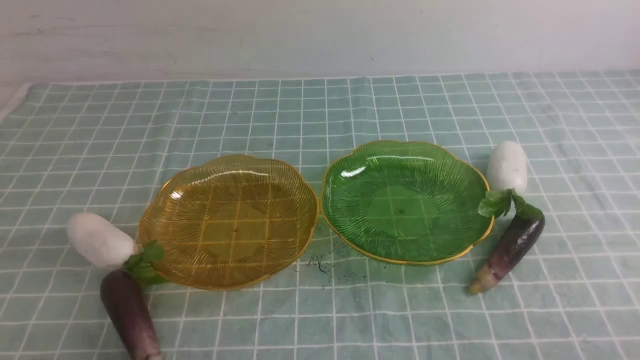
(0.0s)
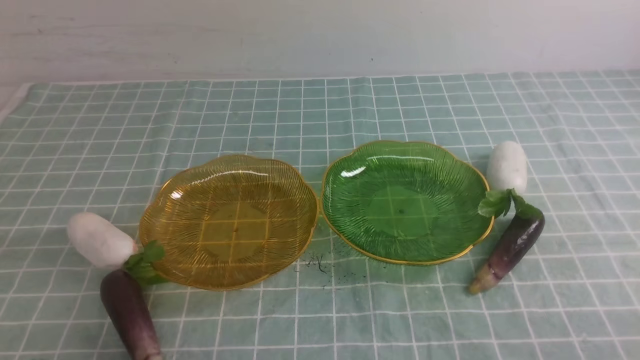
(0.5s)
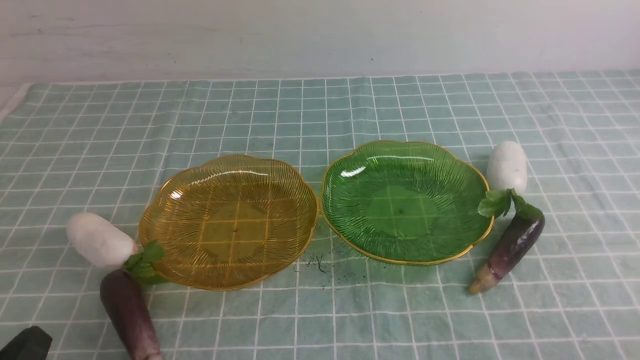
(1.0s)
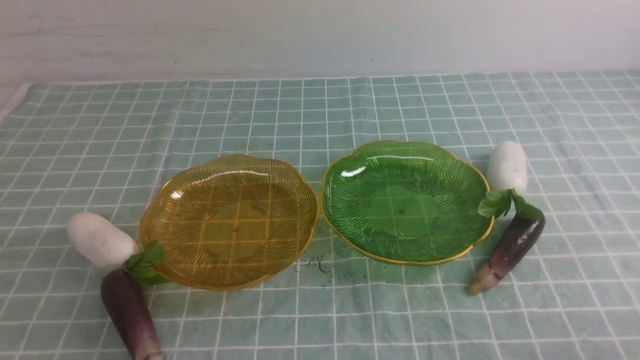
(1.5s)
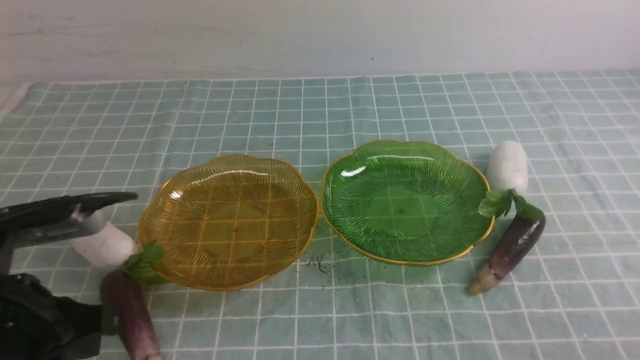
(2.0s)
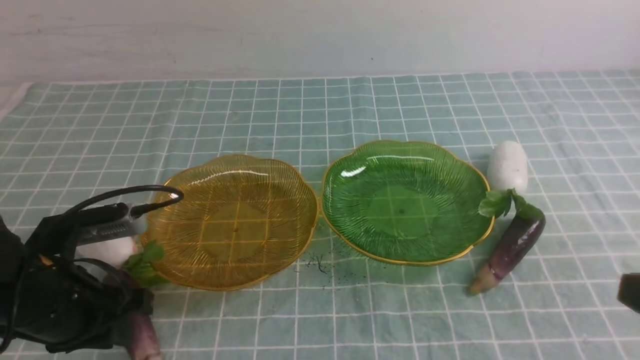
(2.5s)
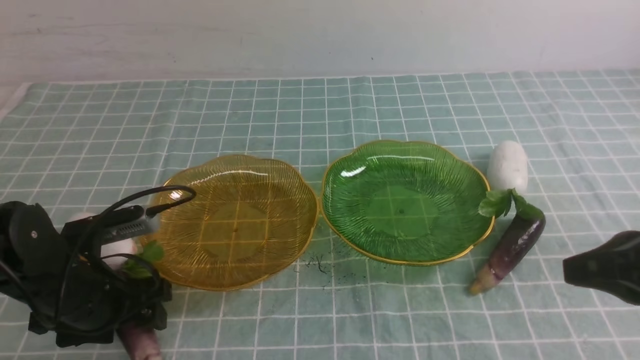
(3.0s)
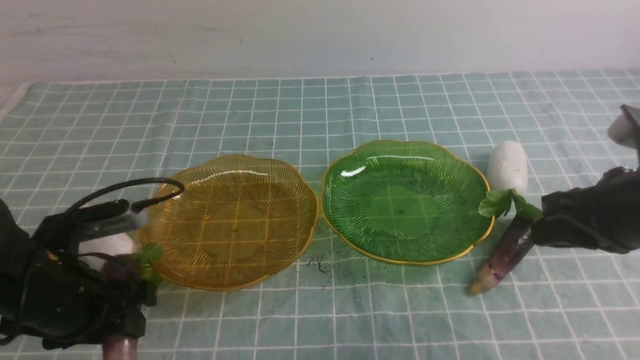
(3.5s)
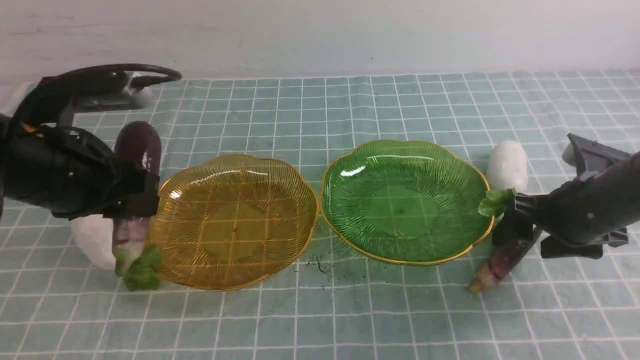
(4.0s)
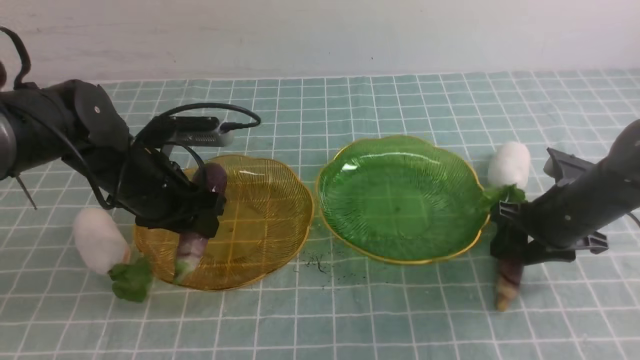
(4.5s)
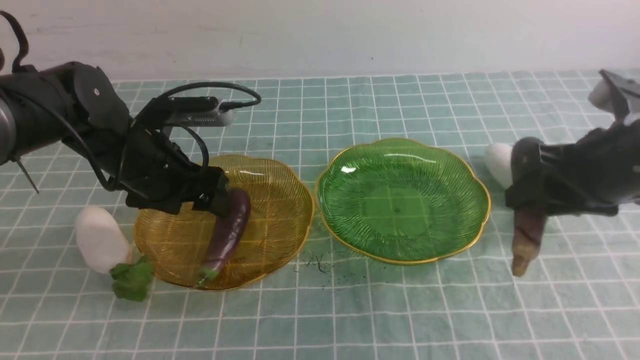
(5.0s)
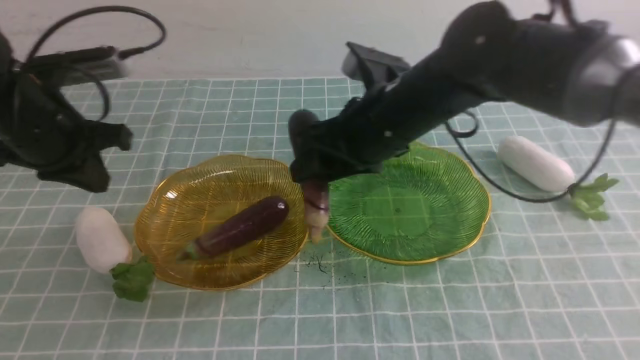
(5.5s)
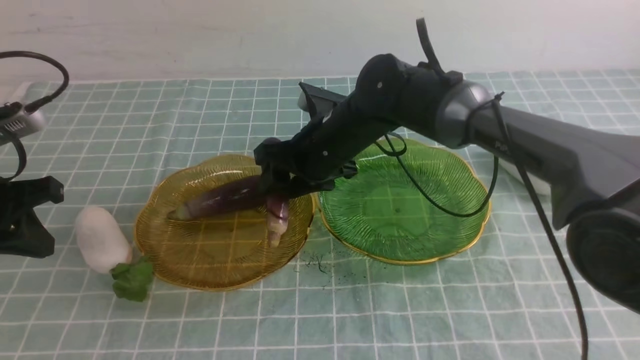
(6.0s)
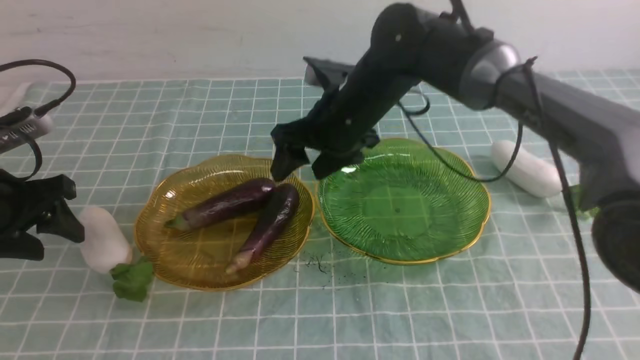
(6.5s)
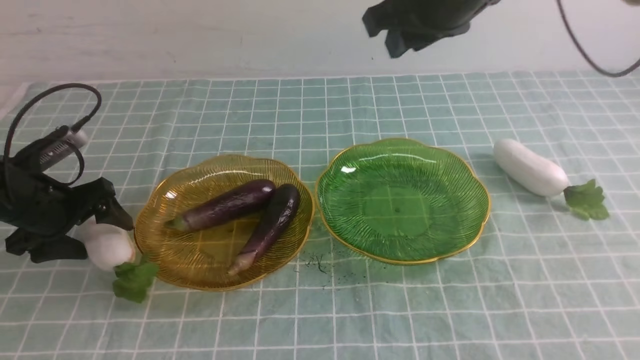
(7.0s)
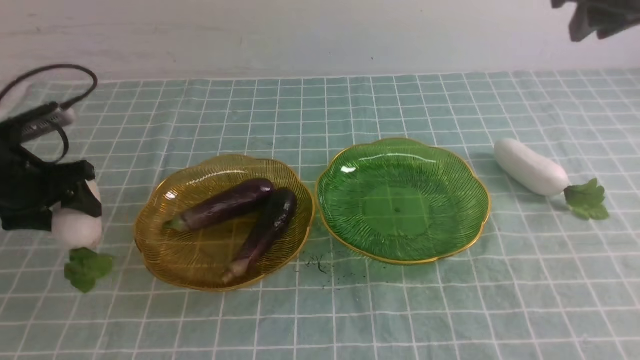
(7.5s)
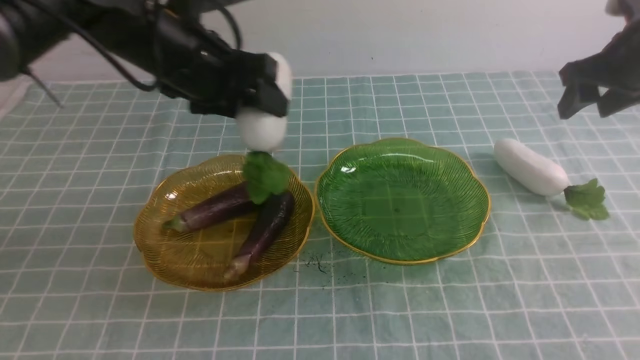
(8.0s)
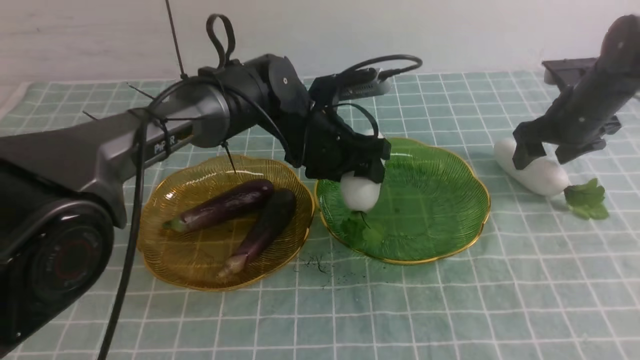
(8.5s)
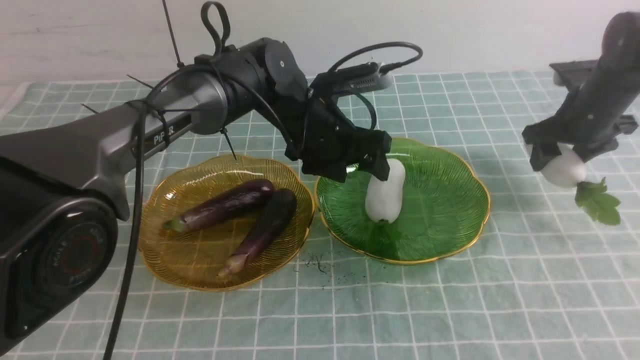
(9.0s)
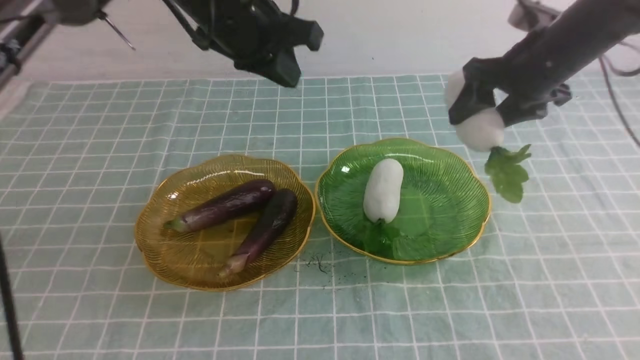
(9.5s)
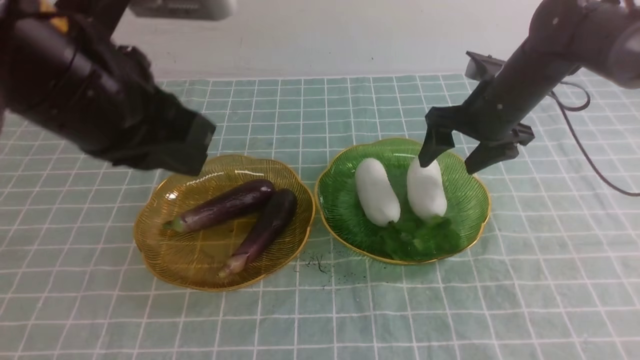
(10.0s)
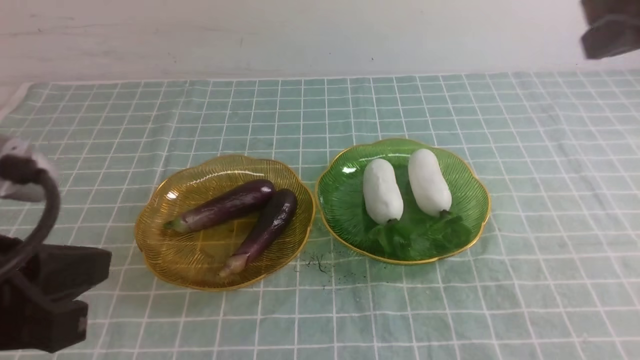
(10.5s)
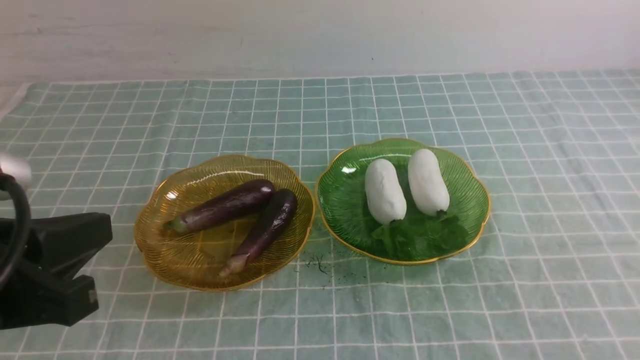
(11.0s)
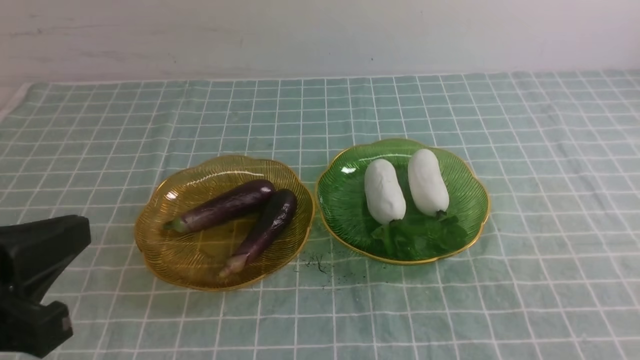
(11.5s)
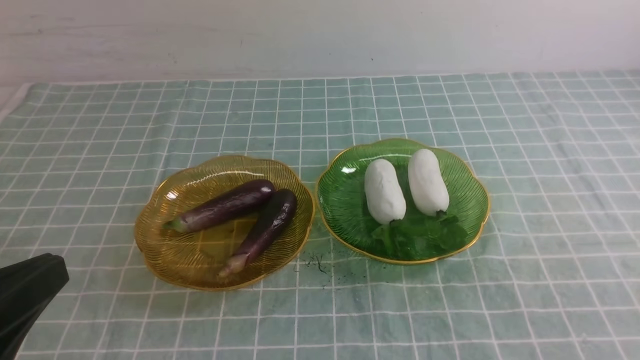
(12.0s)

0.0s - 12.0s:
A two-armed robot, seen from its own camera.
Step, 0.0s - 5.0s: use the left arm to grab an eggplant and put it into the left plate.
Step, 5.5s - 6.0s: use the right arm to grab an eggplant and put it into the left plate.
Step, 6.5s - 8.5s: use the left arm to grab a radish and put it into the right plate.
Step, 9.0s - 10.0s: use the right arm to grab a radish and put it into the right plate.
0.0s - 2.0s: The left gripper shifts approximately 15 cm forward and upward.
2.0s - 4.0s: The right gripper heads forward, covering about 25 cm, and opens up; the left gripper moves forward, approximately 10 cm, and opens.
4.0s - 6.0s: The left gripper is displaced to the left by approximately 10 cm, and closes. Meanwhile the right gripper heads to the left, covering some 25 cm.
6.0s - 8.0s: The right gripper goes some 35 cm to the right, and closes and opens again; the left gripper moves to the right and forward, some 25 cm, and opens its fingers.
8.0s - 10.0s: The right gripper shifts about 10 cm to the left. The left gripper travels backward and upward by approximately 25 cm, and closes.
10.0s - 12.0s: The left gripper is displaced backward, downward and to the left by roughly 15 cm. Meanwhile the right gripper goes about 40 cm backward, and closes up.

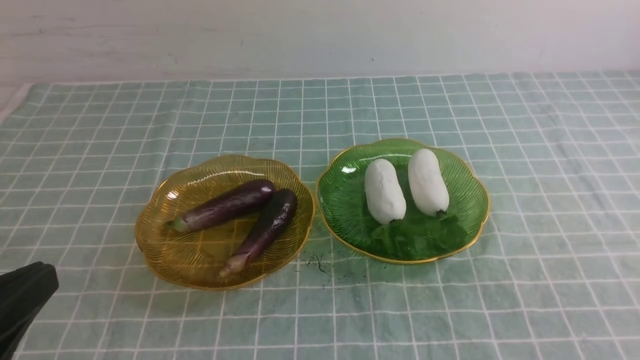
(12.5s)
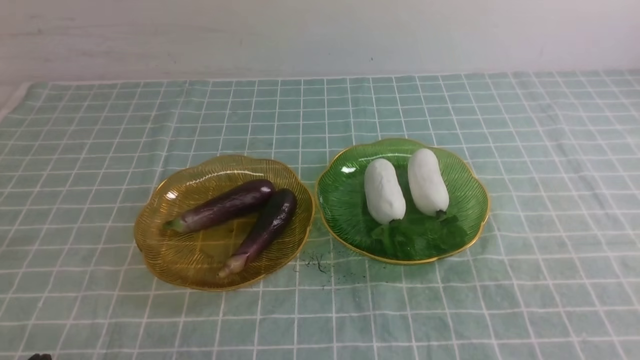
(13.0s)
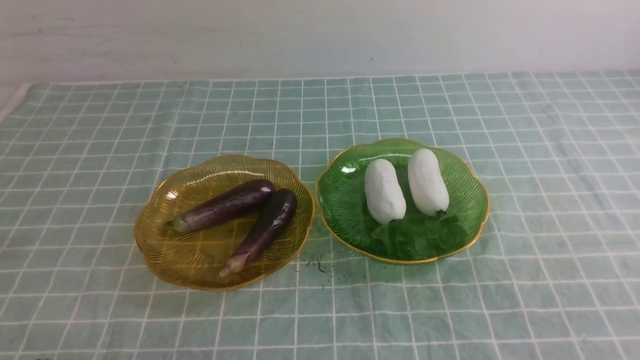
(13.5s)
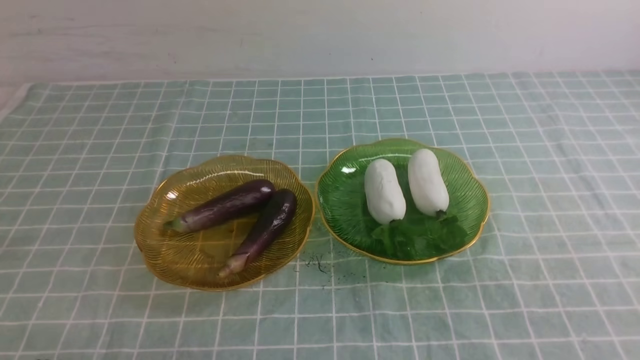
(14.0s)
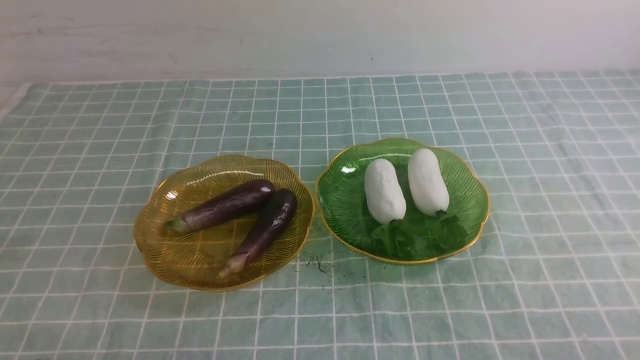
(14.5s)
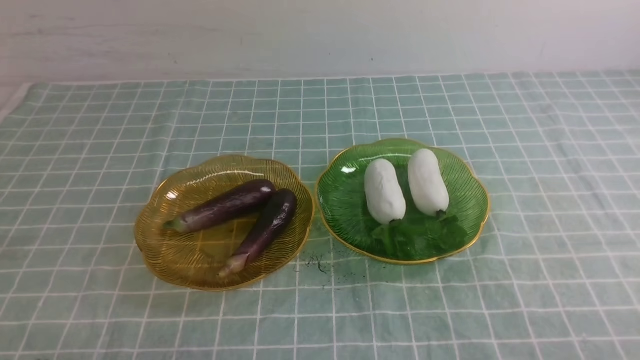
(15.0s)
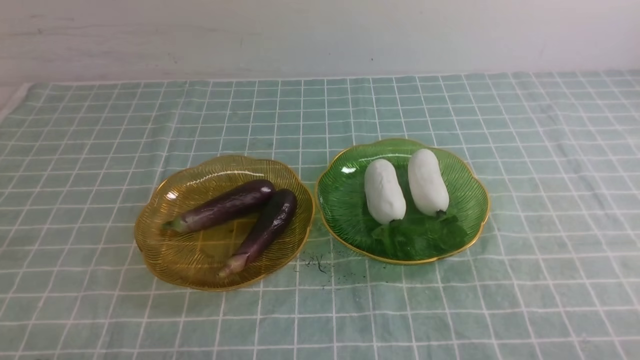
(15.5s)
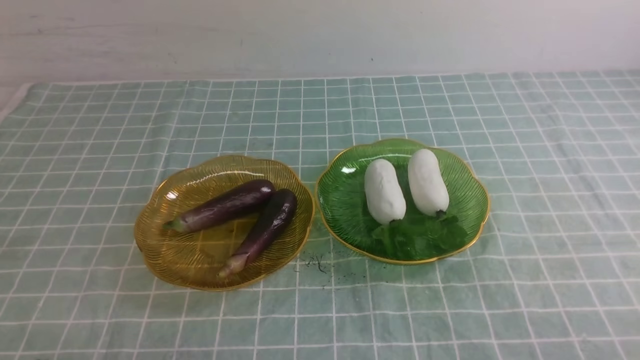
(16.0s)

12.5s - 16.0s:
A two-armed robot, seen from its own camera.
12.5s - 14.5s: The left gripper travels downward by some 10 cm.
14.5s - 16.0s: Both grippers stay put.
